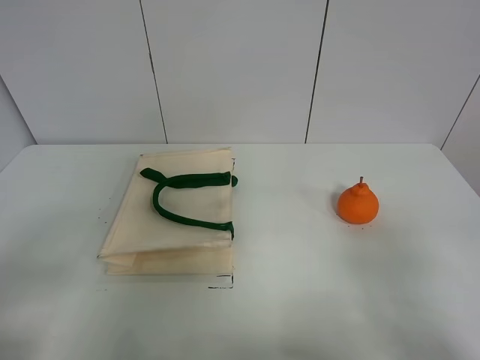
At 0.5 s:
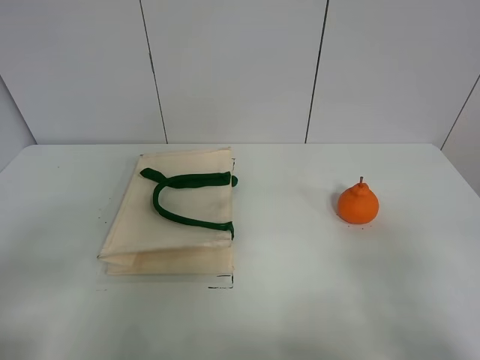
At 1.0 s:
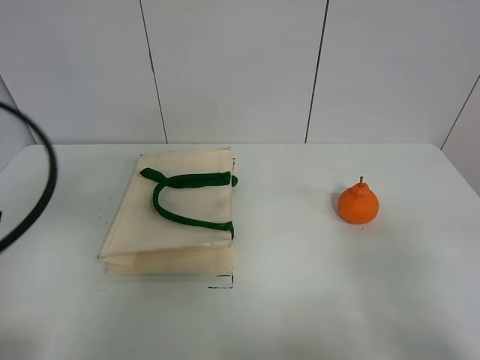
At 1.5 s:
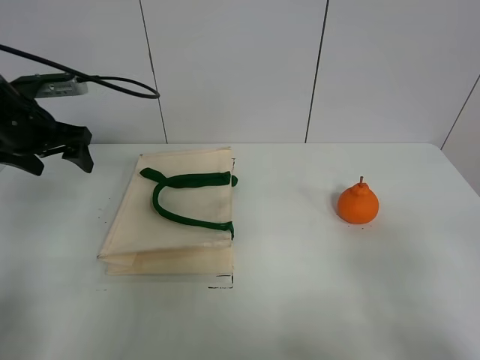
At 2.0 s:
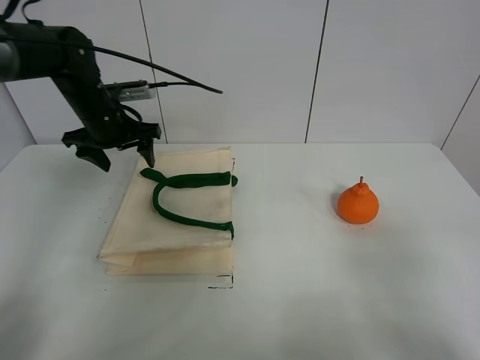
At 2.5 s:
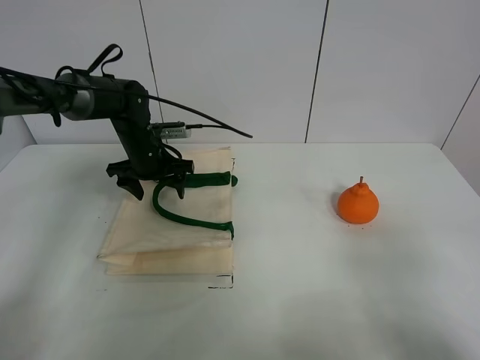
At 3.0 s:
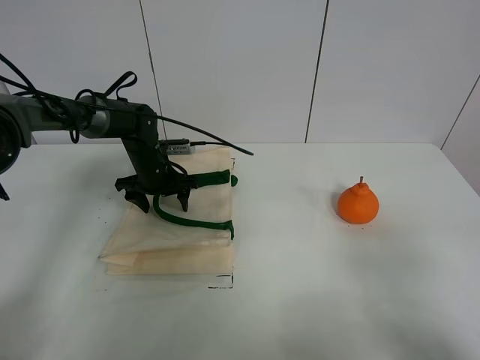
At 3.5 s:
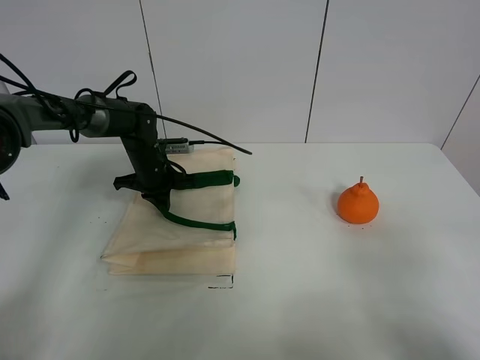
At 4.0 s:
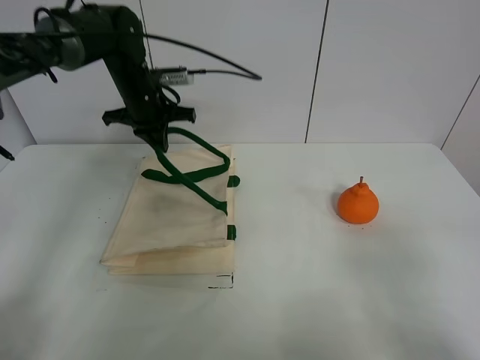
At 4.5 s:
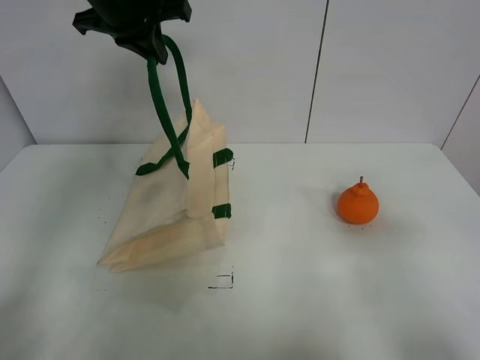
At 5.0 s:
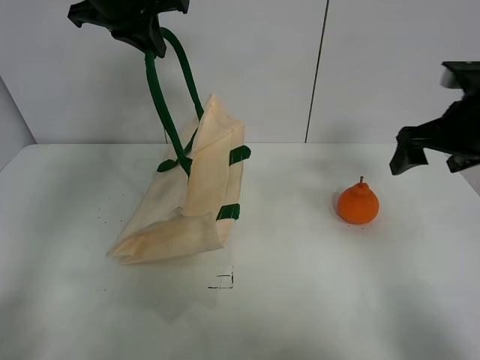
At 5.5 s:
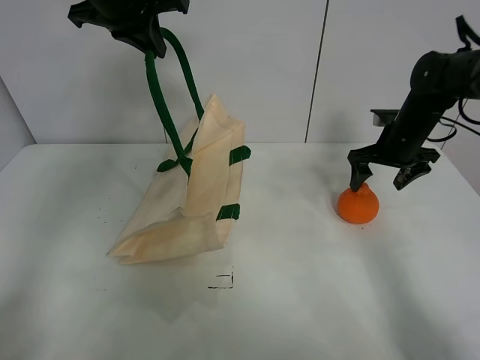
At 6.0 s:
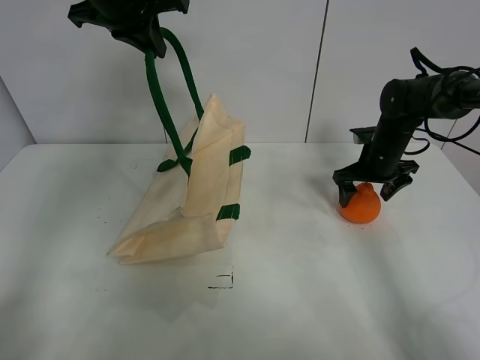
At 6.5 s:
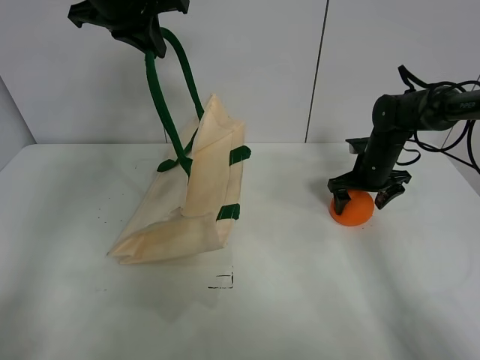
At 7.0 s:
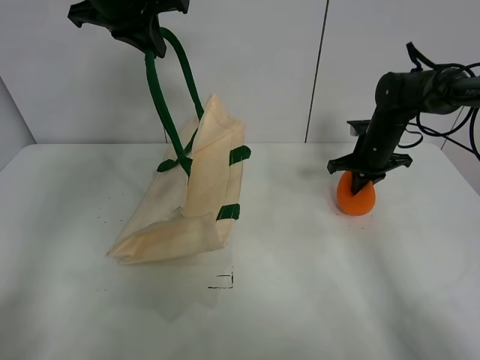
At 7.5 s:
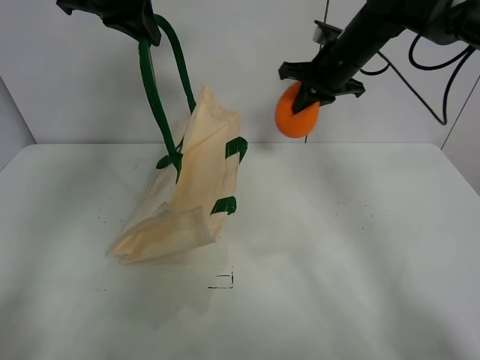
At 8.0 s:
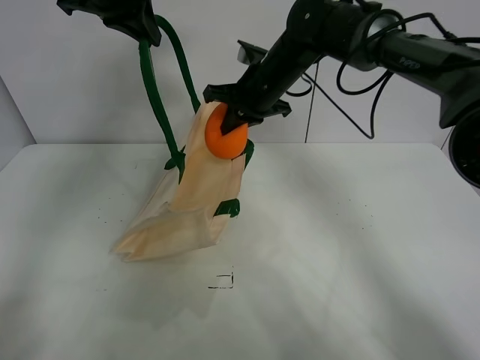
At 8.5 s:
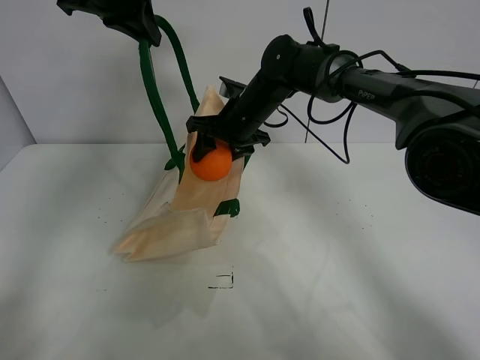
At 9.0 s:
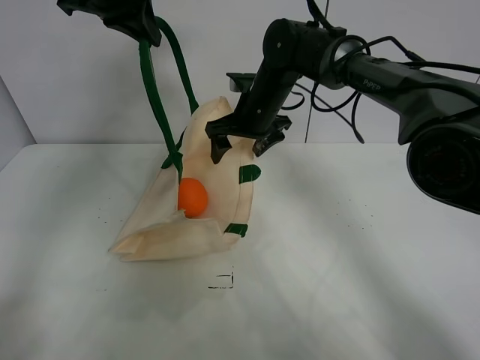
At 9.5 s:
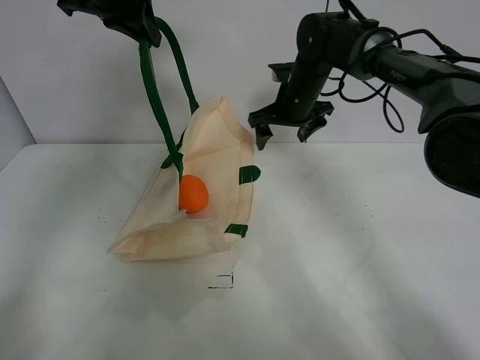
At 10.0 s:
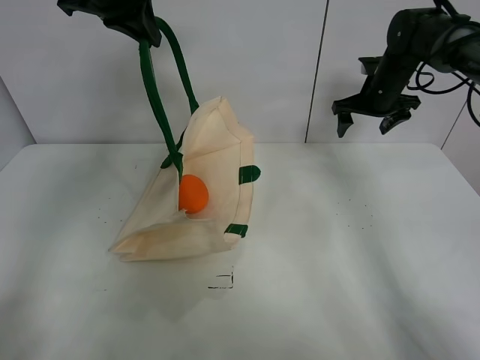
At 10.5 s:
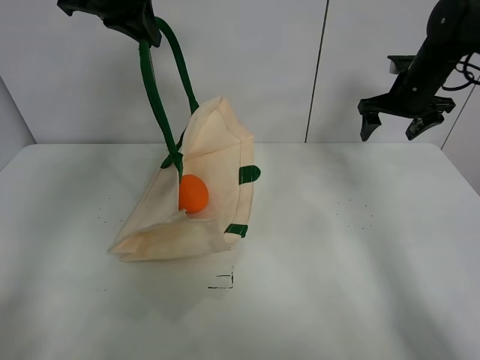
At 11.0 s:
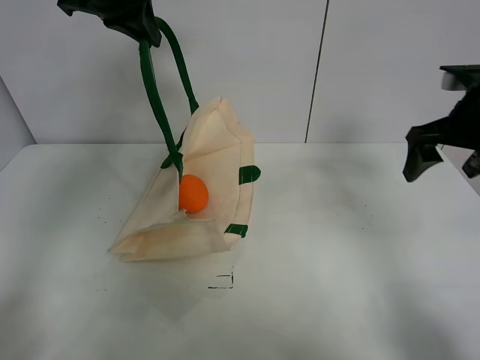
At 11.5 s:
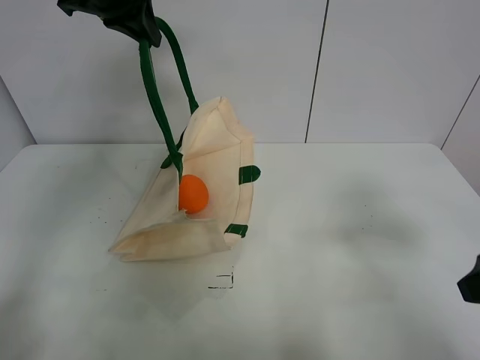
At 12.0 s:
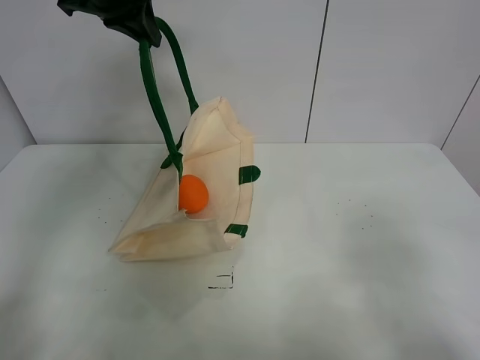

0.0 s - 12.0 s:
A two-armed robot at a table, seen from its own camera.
Task of the whole recording: open the white linen bag and put the orange in the bag.
Step, 0.0 s - 4.0 s: Lift the handbag with left gripper.
Step, 4.5 s - 6.5 s: Grasp the orange with right gripper.
Step, 7.0 s - 9.0 s: Place the orange in the handbag with right gripper.
0.0 s - 2.0 s: The left gripper travels forward by about 40 cm.
2.0 s - 4.0 s: The left gripper travels downward and back again, approximately 10 cm each way, and closes.
4.0 s - 6.0 s: The right gripper shifts some 40 cm forward. The left gripper goes some 15 cm upward and backward.
6.0 s - 8.0 s: The right gripper travels to the left and upward by about 25 cm, and closes its fingers.
8.0 s - 10.0 s: The right gripper heads to the right, covering approximately 25 cm, and opens its fingers.
10.0 s - 12.0 s: The right gripper heads backward, covering some 50 cm.

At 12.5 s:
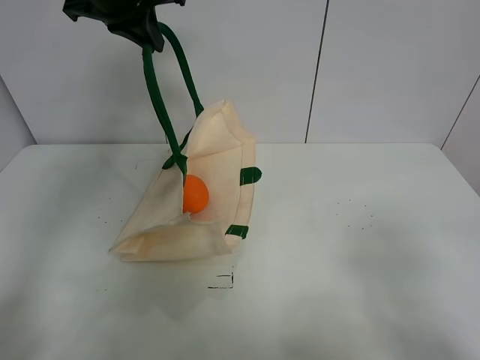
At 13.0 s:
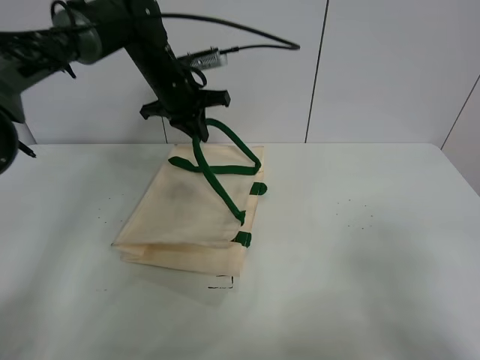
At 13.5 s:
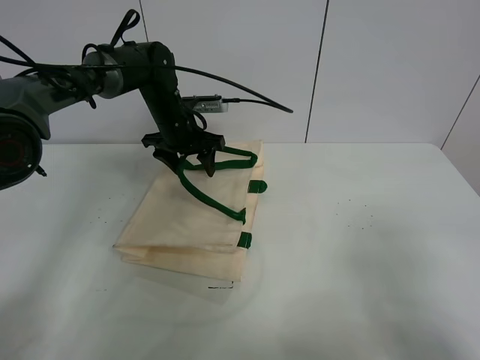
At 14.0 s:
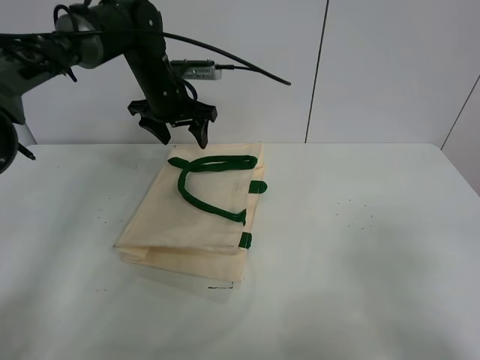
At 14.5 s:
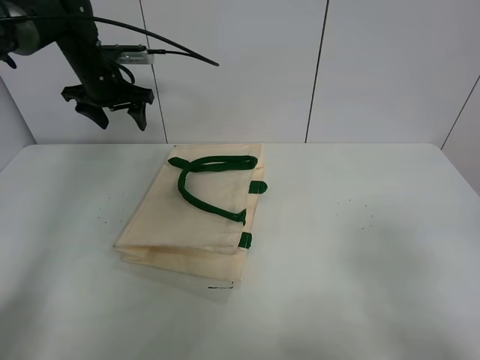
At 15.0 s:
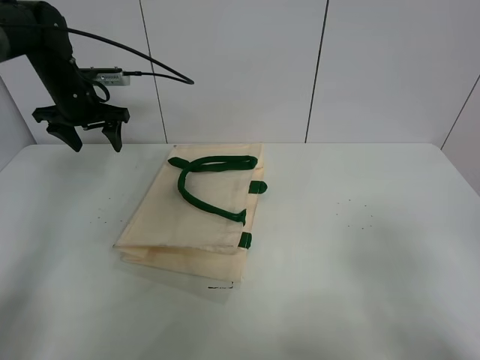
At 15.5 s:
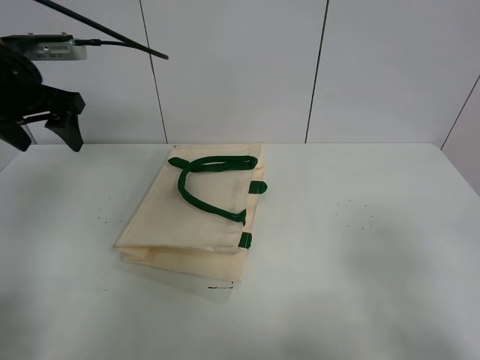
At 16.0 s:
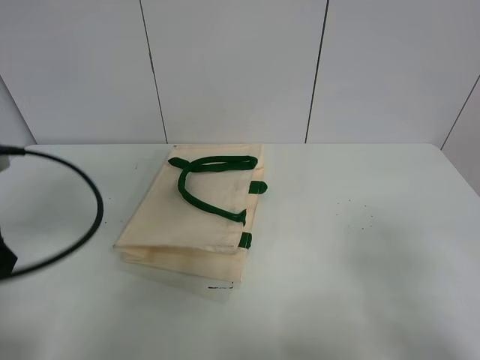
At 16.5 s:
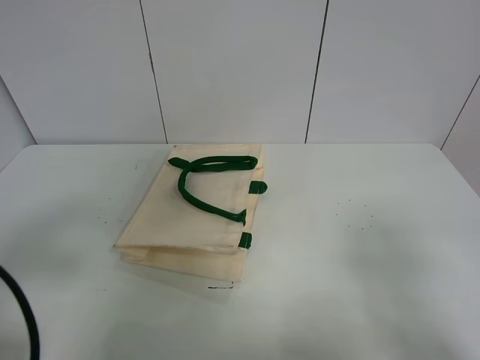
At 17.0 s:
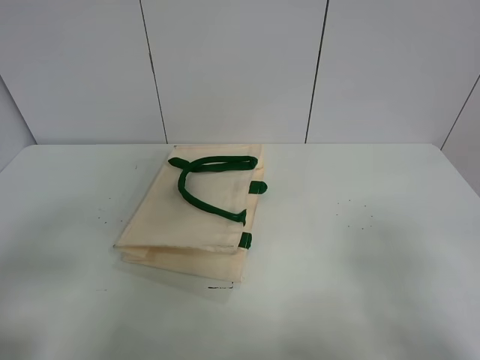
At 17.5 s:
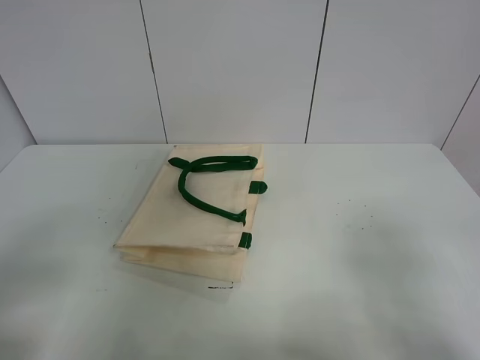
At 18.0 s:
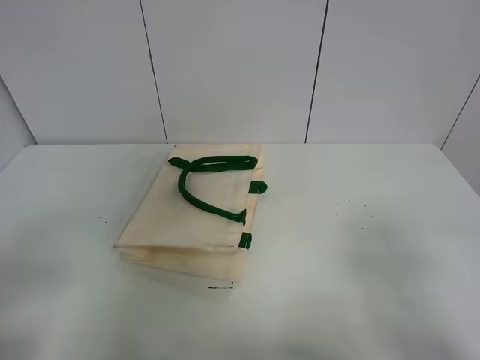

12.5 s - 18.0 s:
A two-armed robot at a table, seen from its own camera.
Task of the whole recording: open the white linen bag and put the orange in the bag.
12.5 s - 14.5 s: The left gripper shifts roughly 20 cm downward, to the left and forward, and opens.
14.5 s - 16.0 s: The left gripper is displaced backward by approximately 35 cm.
16.0 s - 18.0 s: The left gripper goes roughly 15 cm backward.

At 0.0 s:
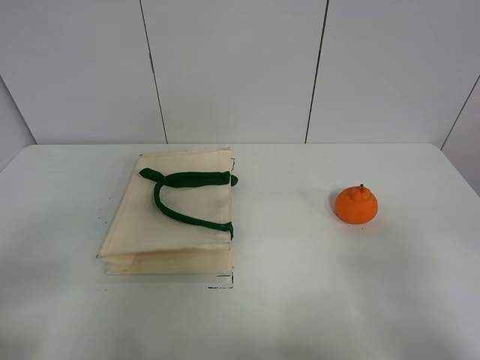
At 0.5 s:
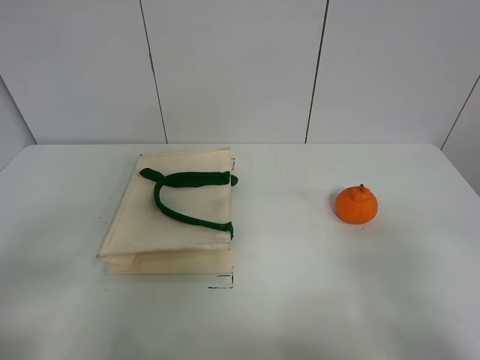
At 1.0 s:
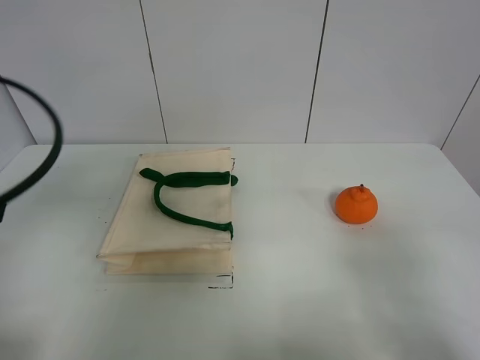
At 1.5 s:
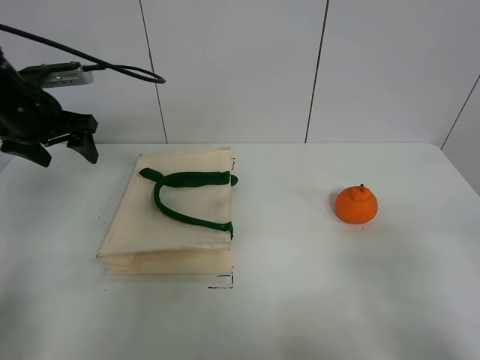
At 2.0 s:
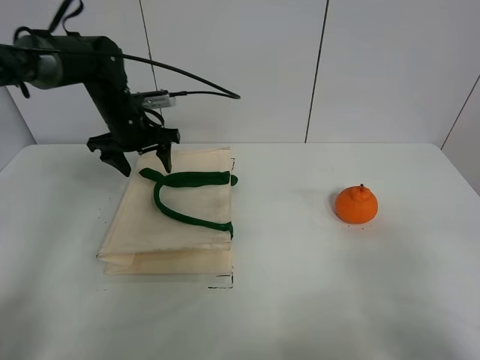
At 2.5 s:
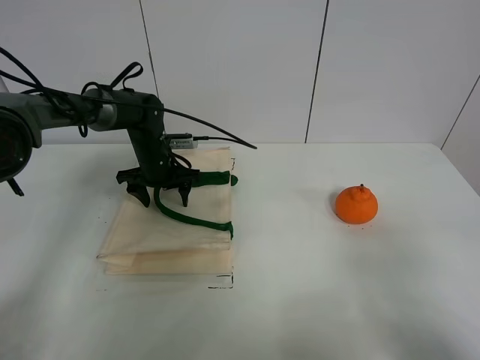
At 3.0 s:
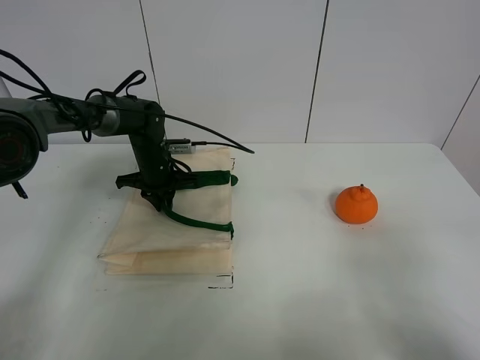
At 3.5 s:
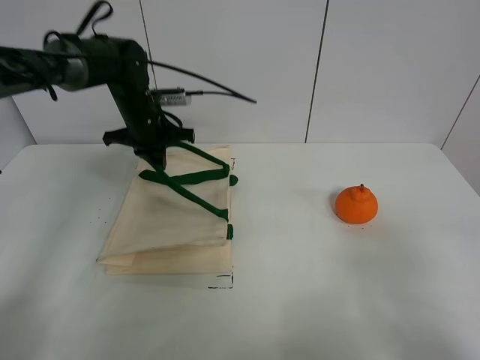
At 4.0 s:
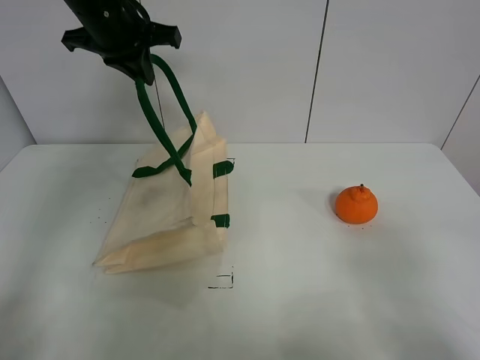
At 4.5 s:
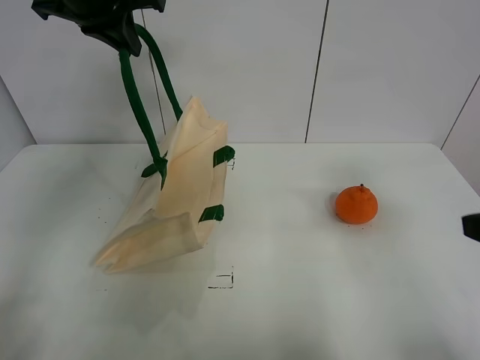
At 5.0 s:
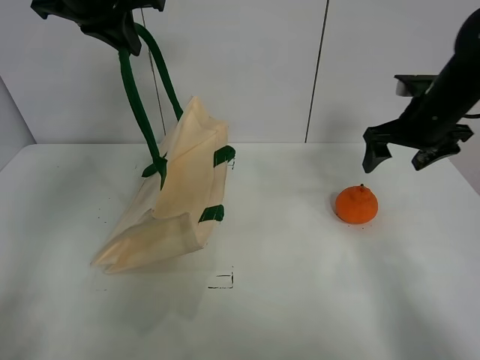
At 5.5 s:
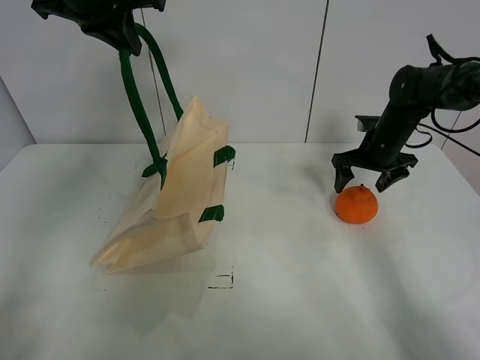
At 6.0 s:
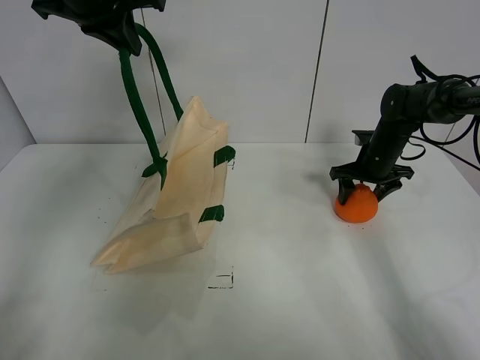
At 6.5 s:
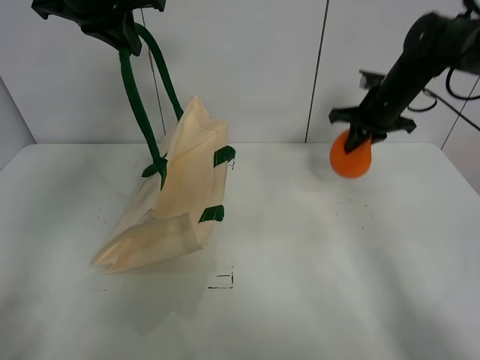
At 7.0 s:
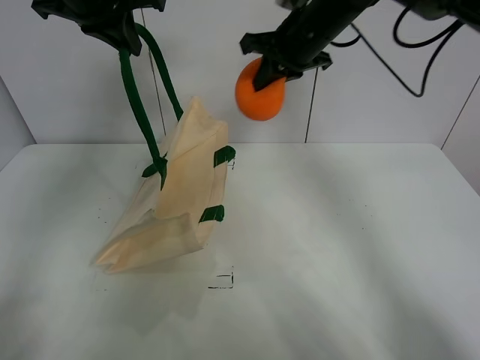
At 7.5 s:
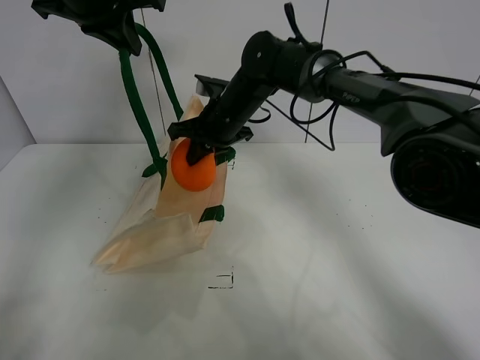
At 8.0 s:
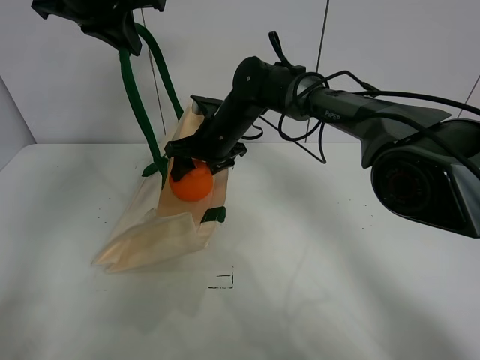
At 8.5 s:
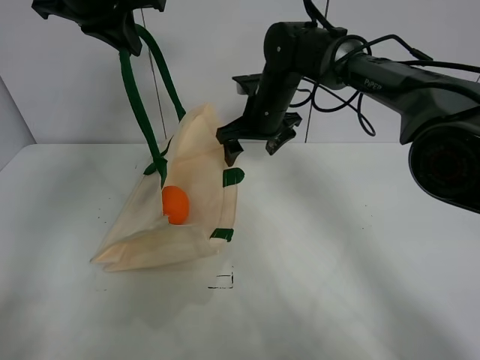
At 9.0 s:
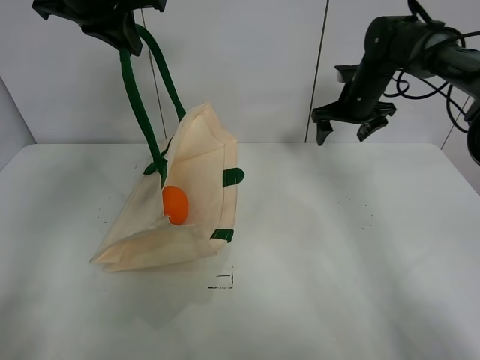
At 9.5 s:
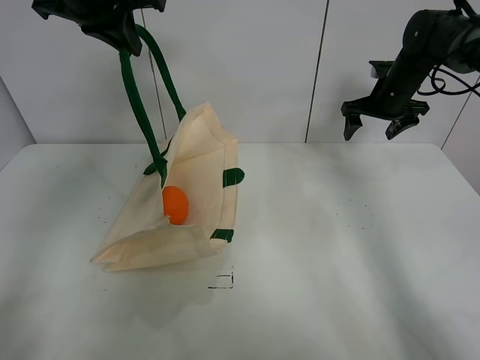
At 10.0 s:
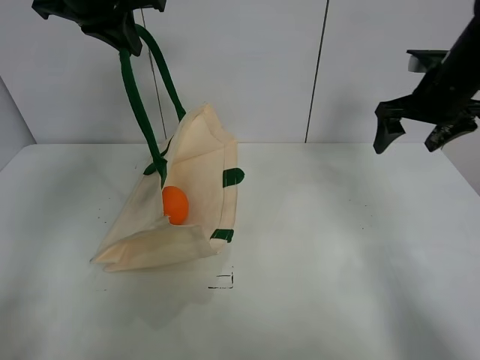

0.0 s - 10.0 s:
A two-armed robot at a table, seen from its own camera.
Task of the whole recording: open the white linen bag and put the orange in the bag.
Step, 0.0 s - 4.0 s: Lift the handbag with left gripper.
Step, 4.5 s - 6.0 s: Grasp the orange with right gripper.
Step, 6.5 s - 8.0 s: Place the orange in the handbag with right gripper.
0.0 s - 2.0 s: The left gripper is displaced forward by some 40 cm.
2.0 s - 4.0 s: The left gripper moves upward, roughly 20 cm, and closes its fingers.
4.0 s - 6.0 s: The right gripper travels forward by approximately 40 cm.
6.0 s - 8.0 s: The right gripper travels to the left by approximately 30 cm, and closes, then reopens.
8.0 s - 10.0 s: The right gripper travels to the right by some 30 cm.
